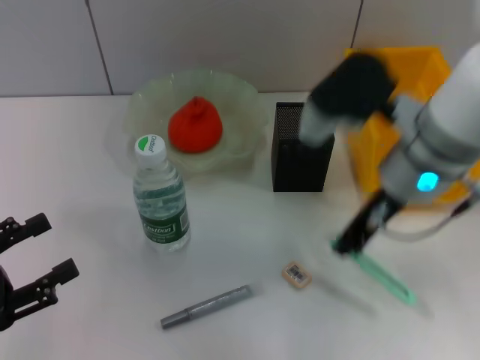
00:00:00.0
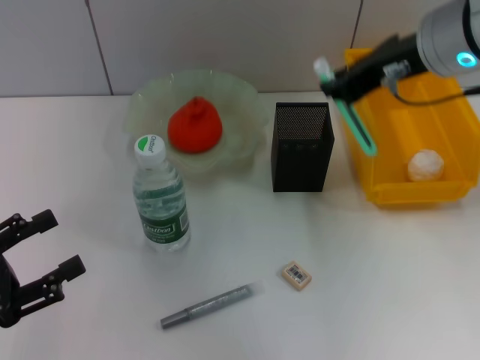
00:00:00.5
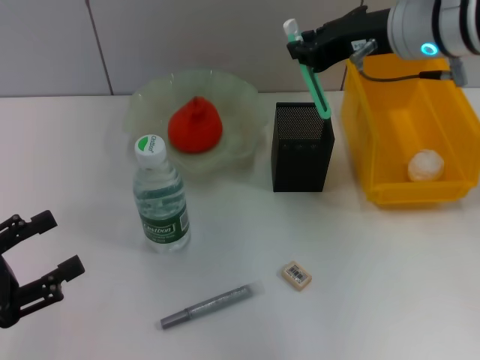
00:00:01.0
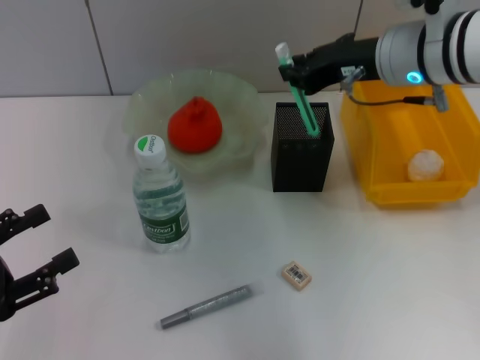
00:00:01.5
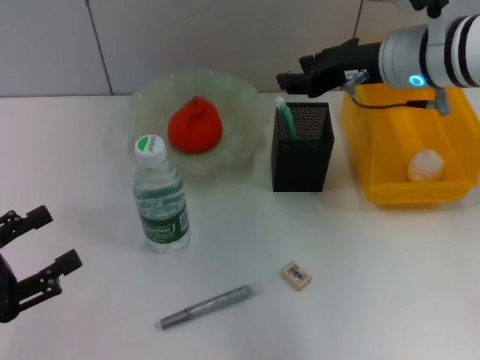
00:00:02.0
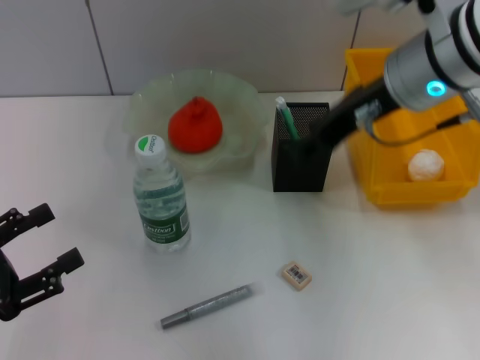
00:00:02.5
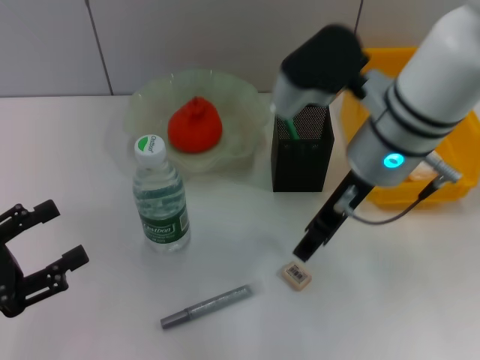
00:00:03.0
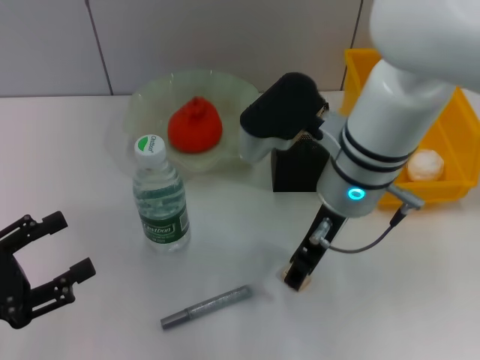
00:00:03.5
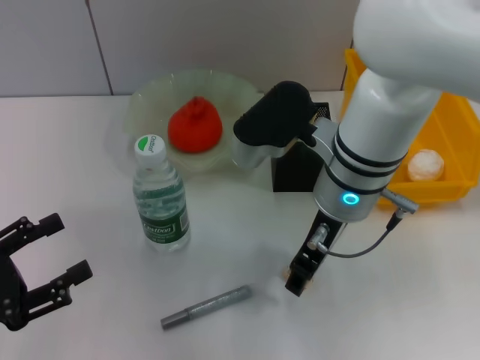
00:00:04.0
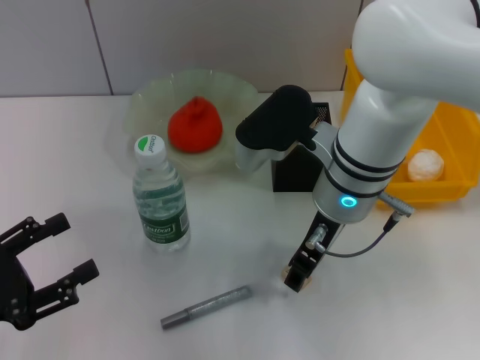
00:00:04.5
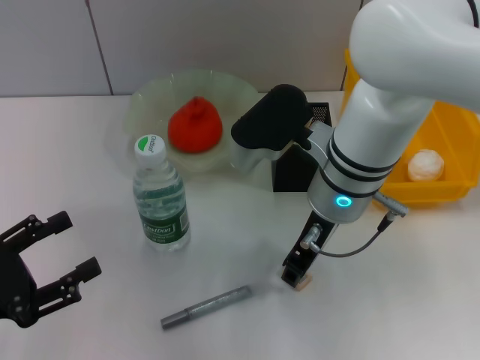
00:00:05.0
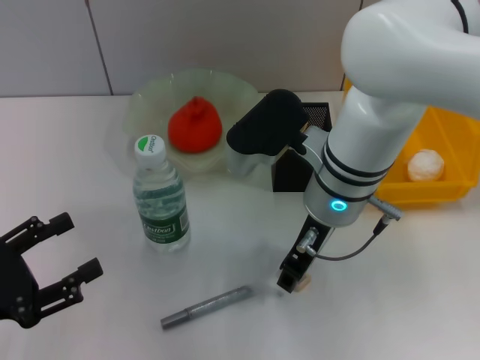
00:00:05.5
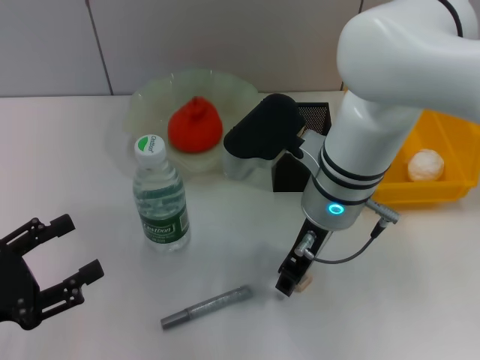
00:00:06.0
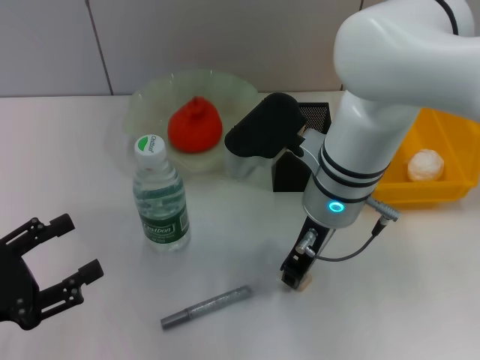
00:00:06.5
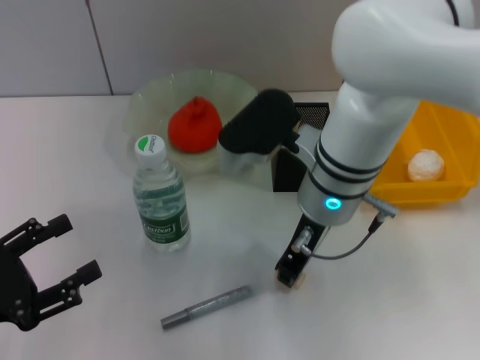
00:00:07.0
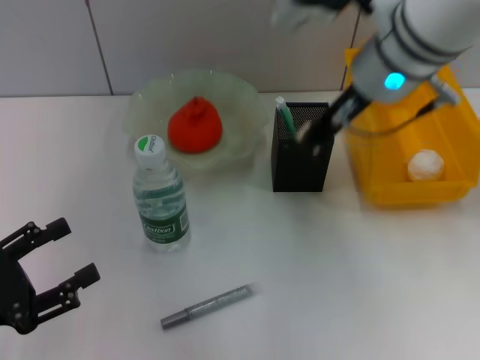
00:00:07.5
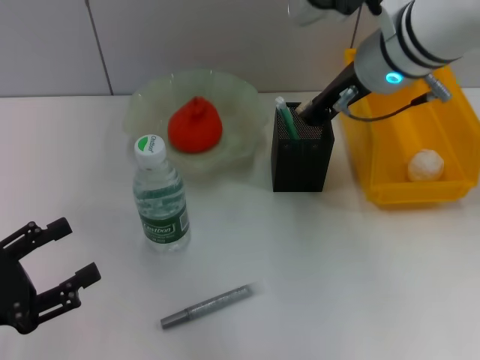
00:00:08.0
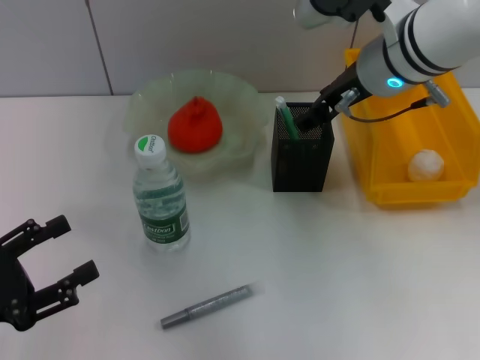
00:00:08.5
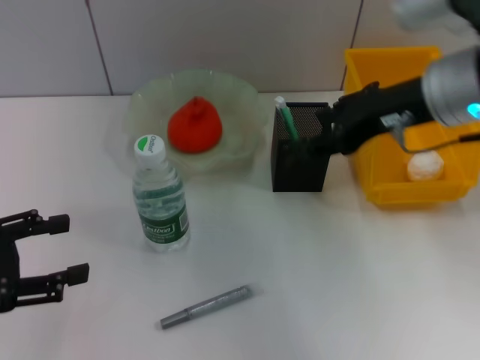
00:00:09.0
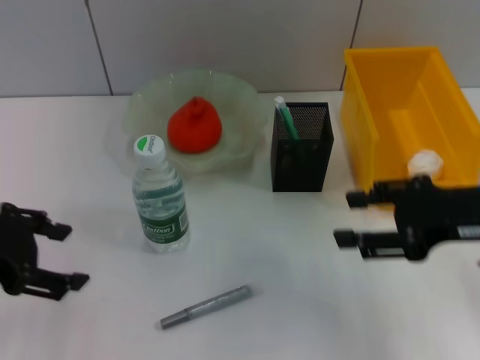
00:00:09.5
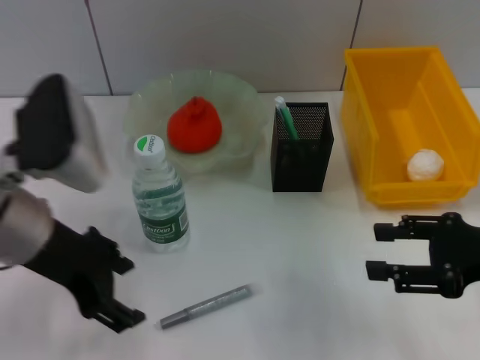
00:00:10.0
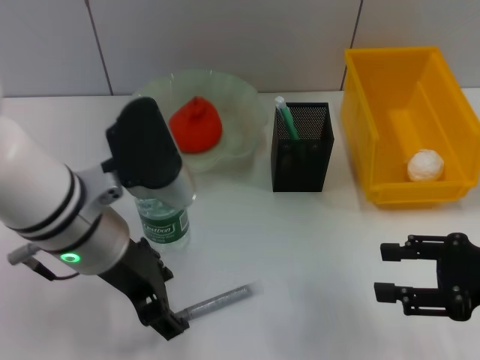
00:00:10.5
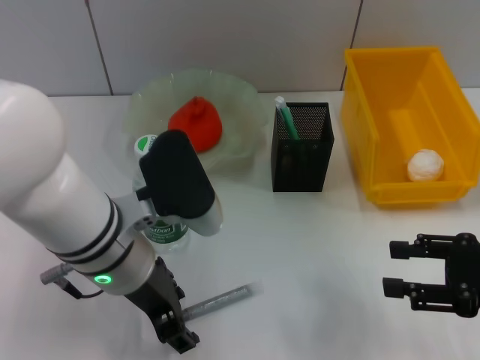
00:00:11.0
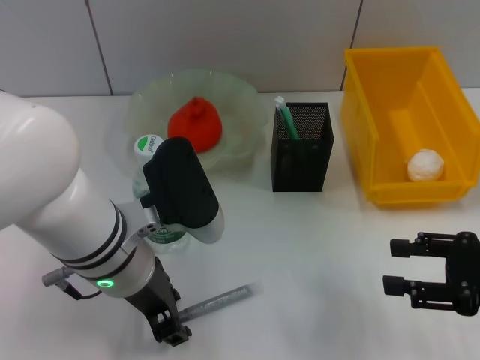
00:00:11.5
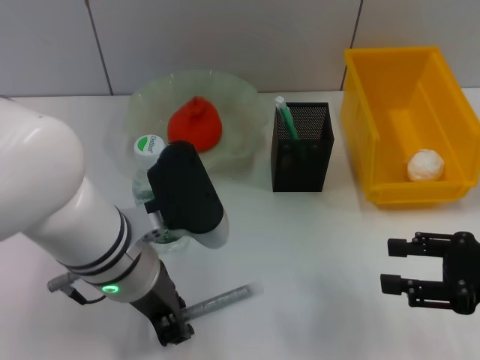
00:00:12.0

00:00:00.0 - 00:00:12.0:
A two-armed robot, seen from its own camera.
Step, 00:00:00.0 - 00:00:02.0: Place the blue utility knife into the pen holder with the right hand.
Step, 00:00:02.5 - 00:00:06.5: Grab the eraser with the right hand.
Step, 00:00:07.0 - 00:00:08.5: Put the eraser into the pen holder with the right hand.
00:00:00.0 - 00:00:02.0: The right gripper is displaced forward by approximately 5 cm.
00:00:02.0 - 00:00:04.0: The right gripper moves to the left and backward, approximately 10 cm, and opens up.
00:00:04.0 - 00:00:06.0: The grippers make only small movements.
00:00:06.0 - 00:00:08.0: The right gripper is displaced upward, forward and to the right by approximately 10 cm, and closes.
00:00:08.0 - 00:00:10.0: The right gripper shifts about 25 cm to the right, backward and downward, and opens. The left gripper travels upward, to the right and forward by roughly 20 cm.
00:00:10.0 - 00:00:12.0: The left gripper heads to the right and downward, covering about 10 cm, and closes up.

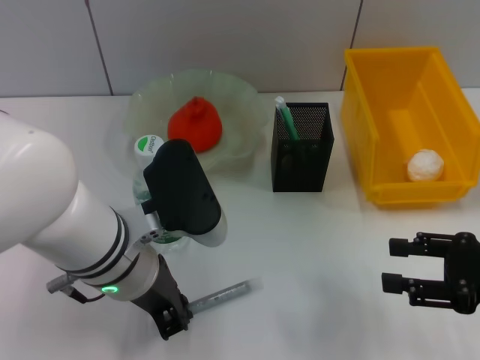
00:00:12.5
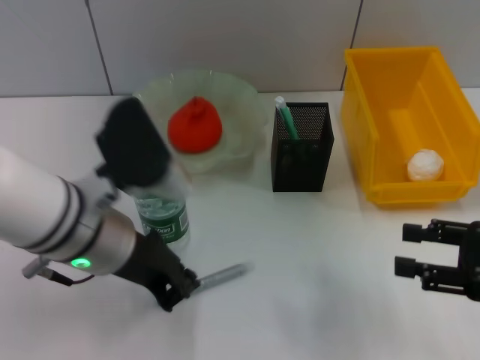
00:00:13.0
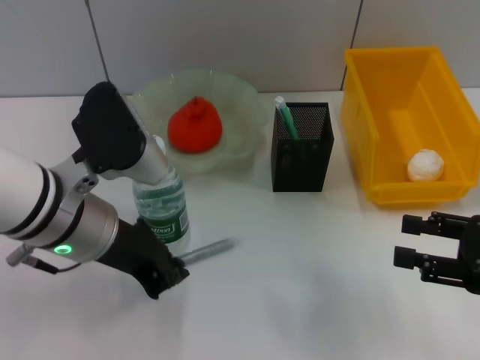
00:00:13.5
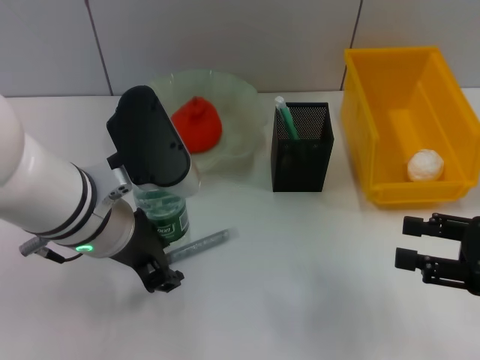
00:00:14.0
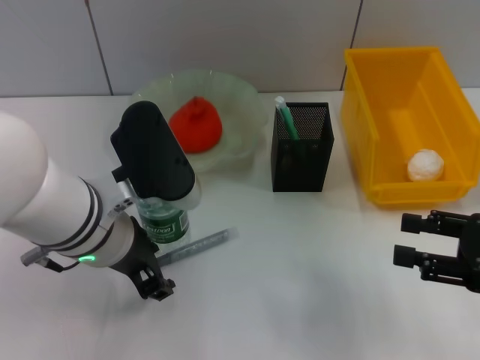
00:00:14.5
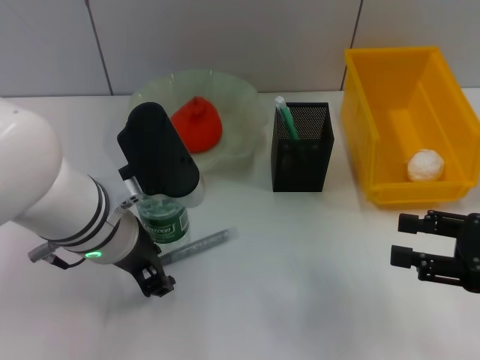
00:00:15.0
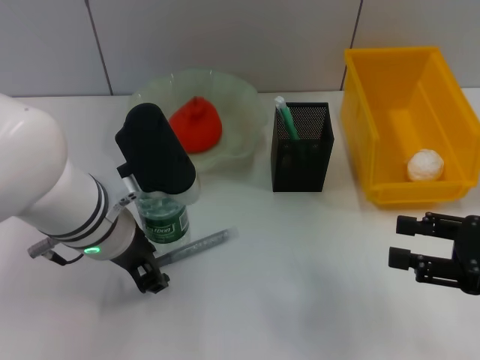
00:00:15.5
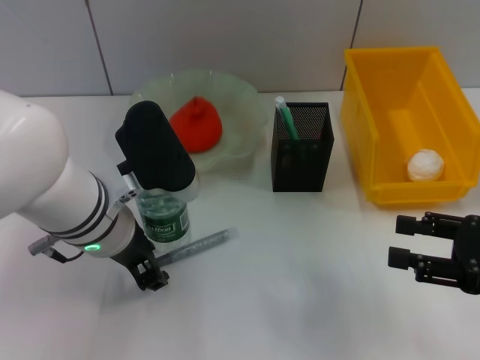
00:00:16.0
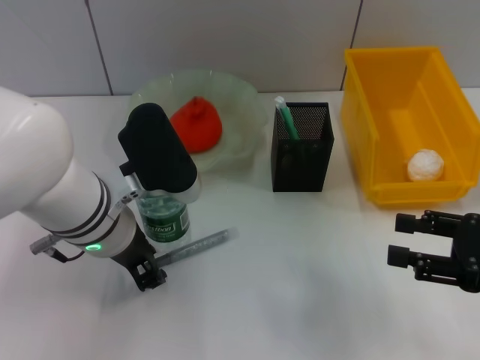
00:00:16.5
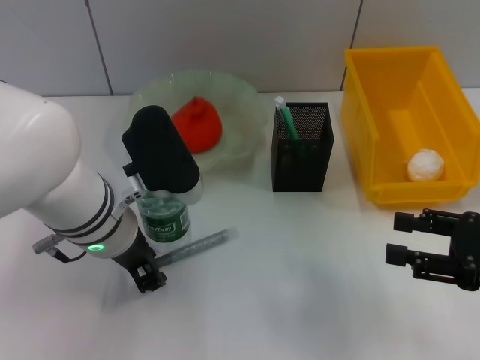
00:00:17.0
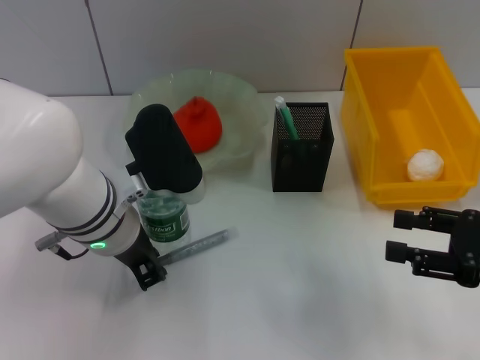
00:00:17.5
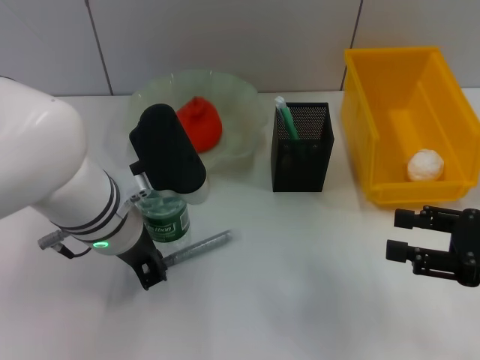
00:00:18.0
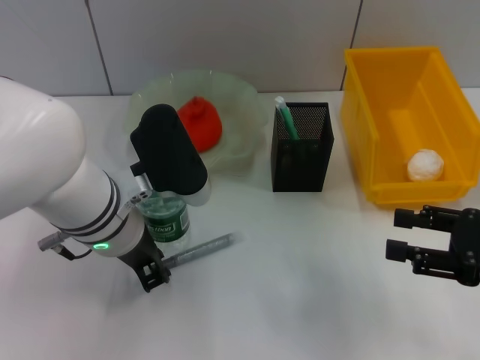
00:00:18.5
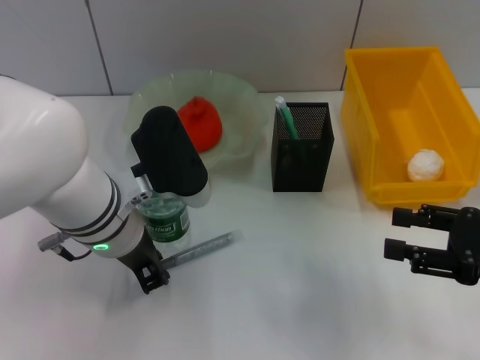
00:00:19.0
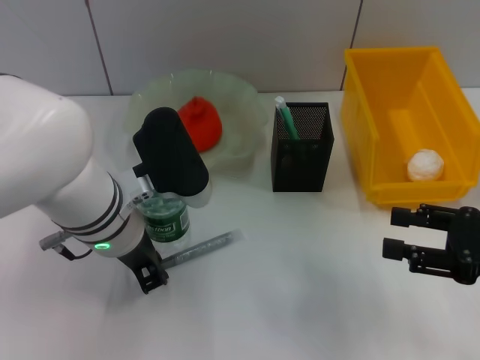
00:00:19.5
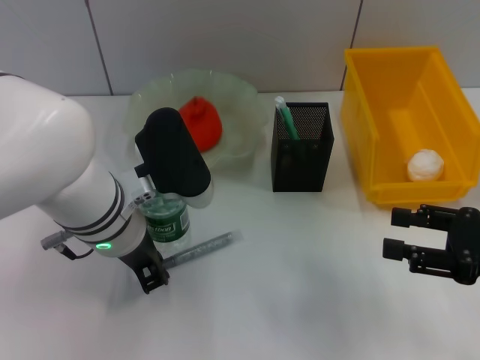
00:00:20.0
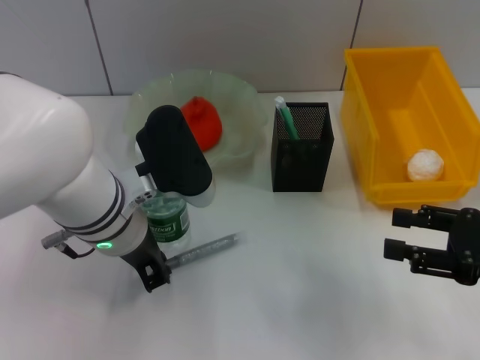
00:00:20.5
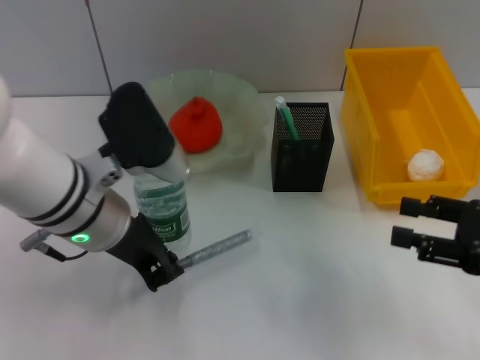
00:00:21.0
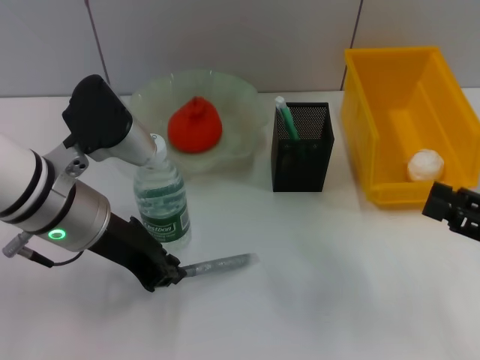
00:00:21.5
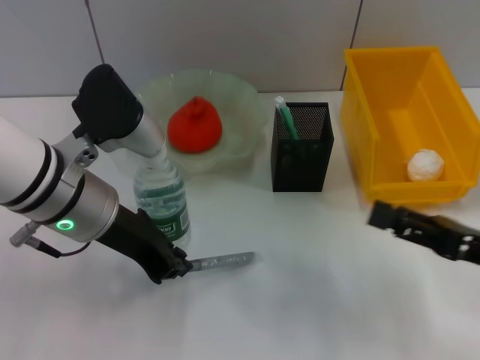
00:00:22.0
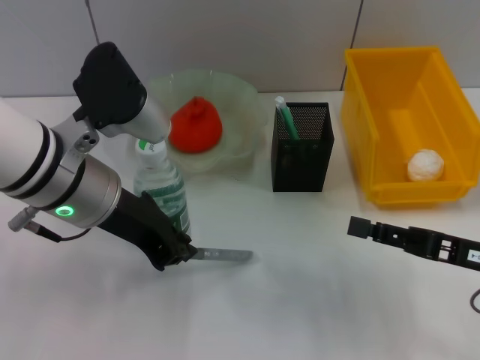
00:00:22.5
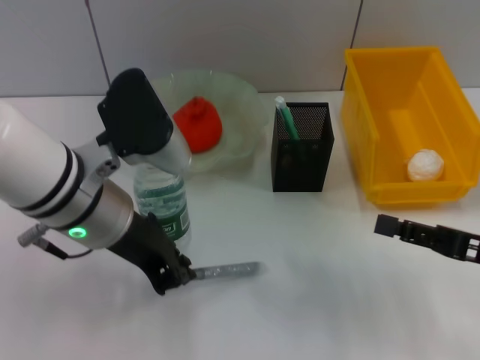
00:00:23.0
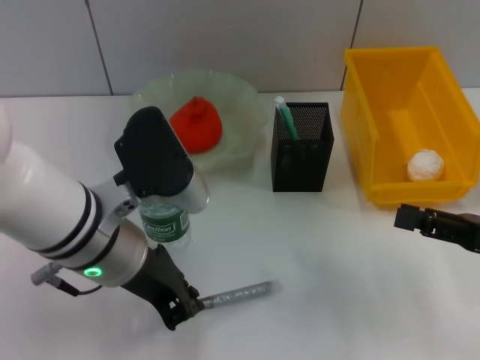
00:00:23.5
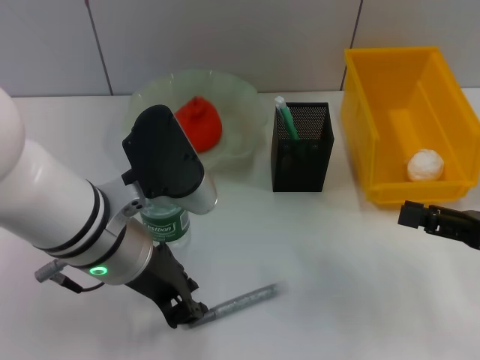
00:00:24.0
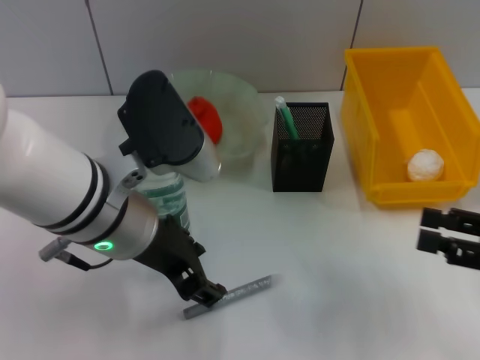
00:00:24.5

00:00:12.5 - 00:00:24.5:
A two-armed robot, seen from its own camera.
00:00:12.5 - 00:00:14.5: The left gripper opens its fingers.
00:00:14.5 - 00:00:16.5: The grippers stay close to where they were, moving slightly.
00:00:16.5 - 00:00:20.5: Both grippers stay about where they are.
00:00:20.5 - 00:00:22.5: The left gripper changes place by some 5 cm.
00:00:22.5 - 00:00:24.5: The left gripper opens; the right gripper heads to the right, covering roughly 5 cm.

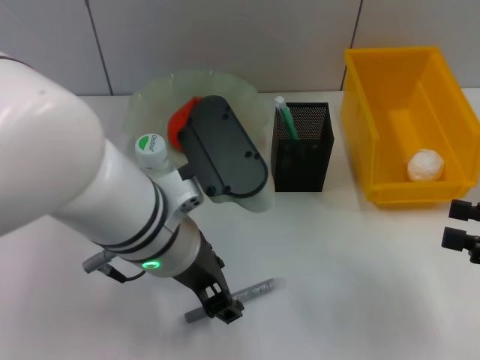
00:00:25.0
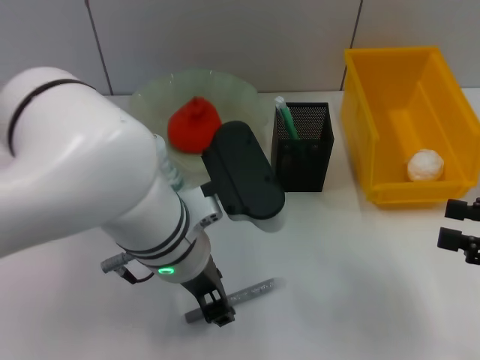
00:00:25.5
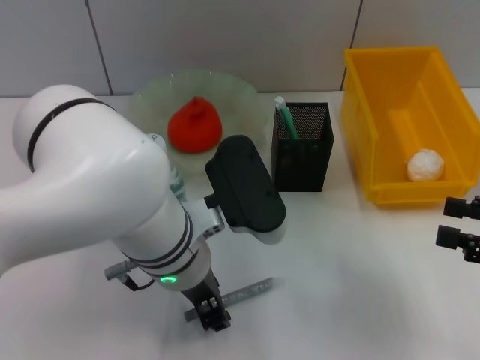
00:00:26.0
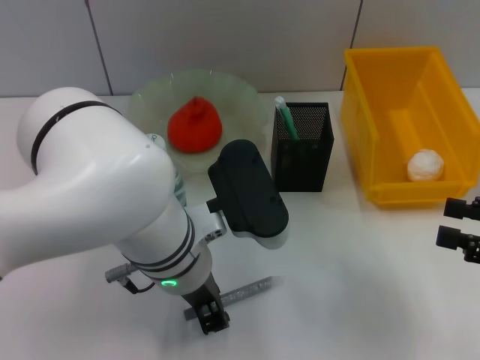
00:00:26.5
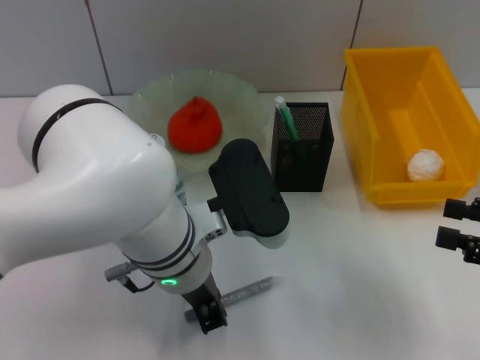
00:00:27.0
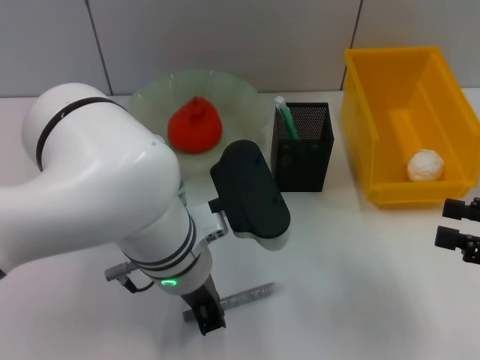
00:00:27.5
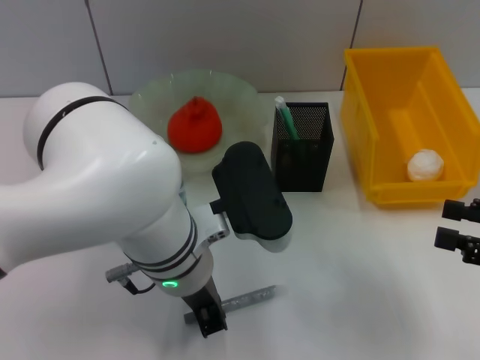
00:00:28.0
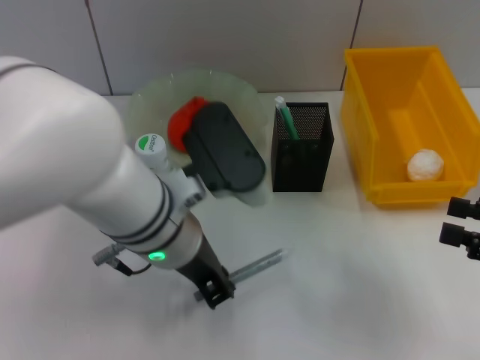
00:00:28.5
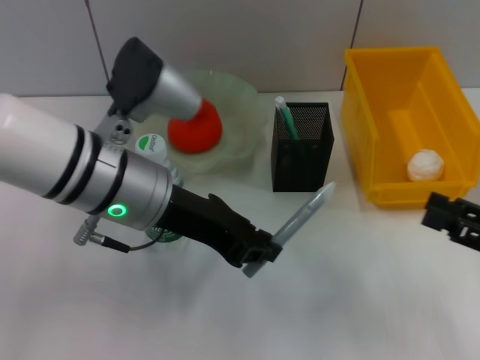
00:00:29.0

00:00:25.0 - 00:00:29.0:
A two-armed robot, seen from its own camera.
Step, 00:00:25.0 - 00:00:27.5: Grab the gray glue with the left hand.
00:00:25.0 - 00:00:27.0: The left gripper closes up.
00:00:27.0 - 00:00:29.0: The left gripper is displaced to the left by some 5 cm.
